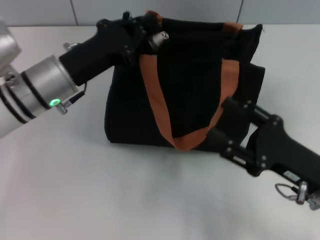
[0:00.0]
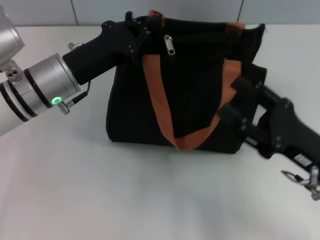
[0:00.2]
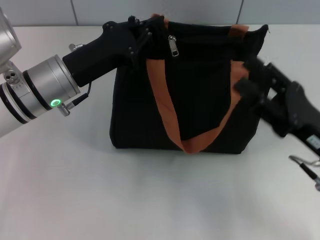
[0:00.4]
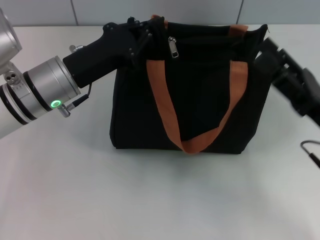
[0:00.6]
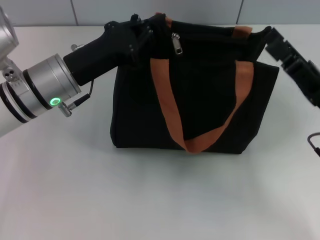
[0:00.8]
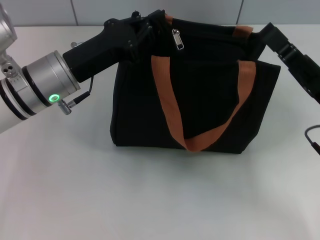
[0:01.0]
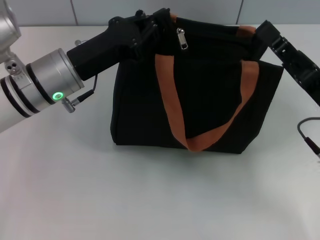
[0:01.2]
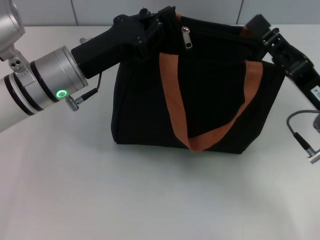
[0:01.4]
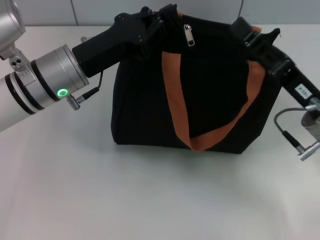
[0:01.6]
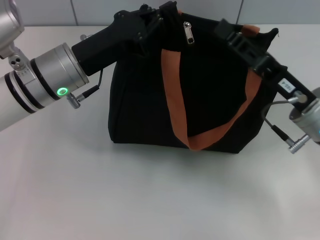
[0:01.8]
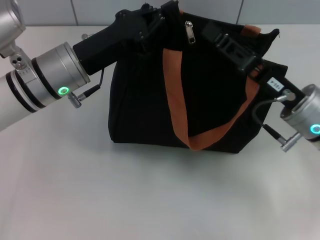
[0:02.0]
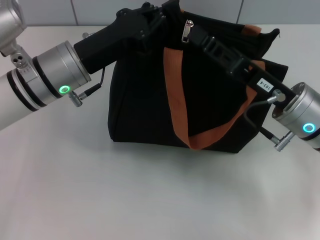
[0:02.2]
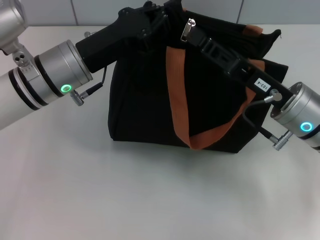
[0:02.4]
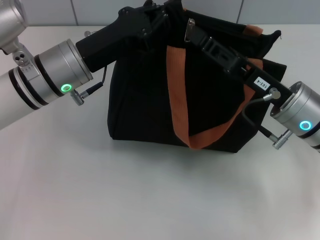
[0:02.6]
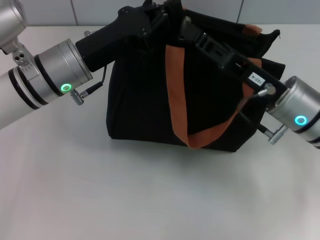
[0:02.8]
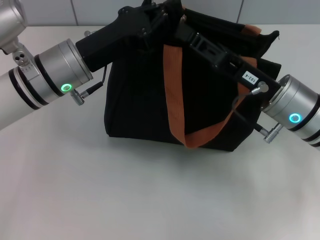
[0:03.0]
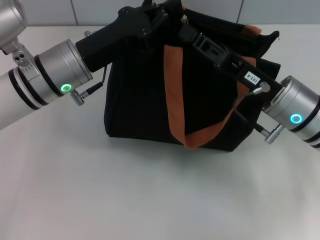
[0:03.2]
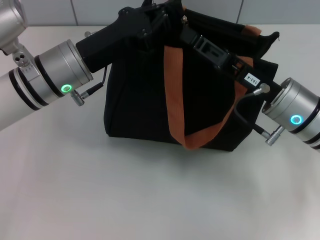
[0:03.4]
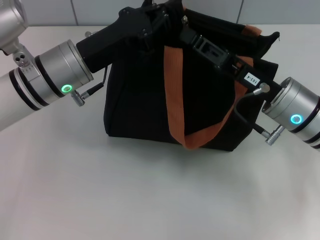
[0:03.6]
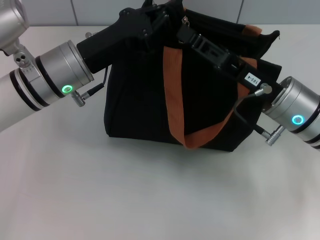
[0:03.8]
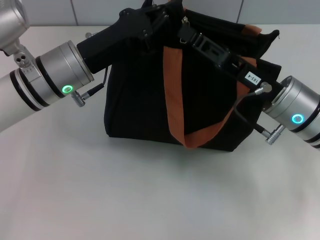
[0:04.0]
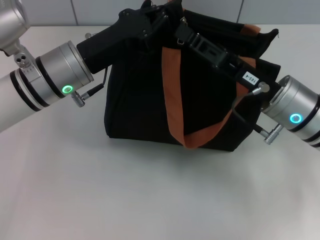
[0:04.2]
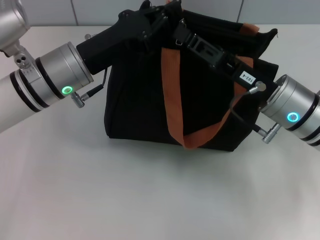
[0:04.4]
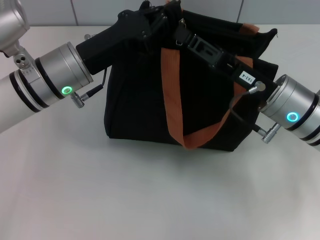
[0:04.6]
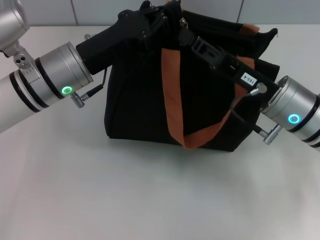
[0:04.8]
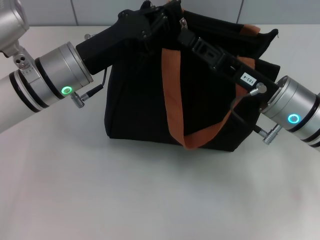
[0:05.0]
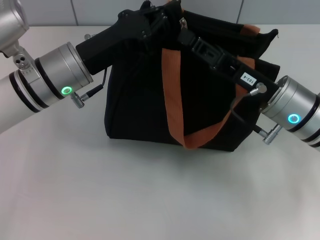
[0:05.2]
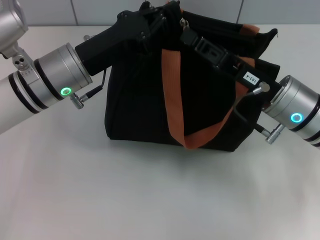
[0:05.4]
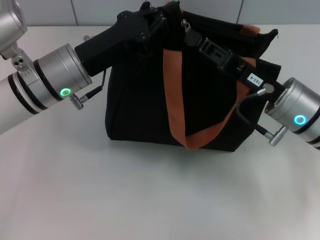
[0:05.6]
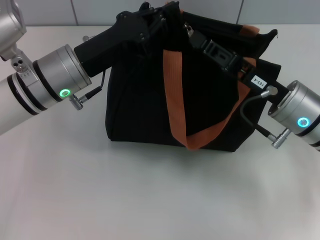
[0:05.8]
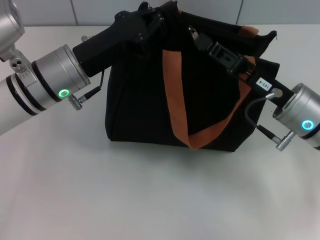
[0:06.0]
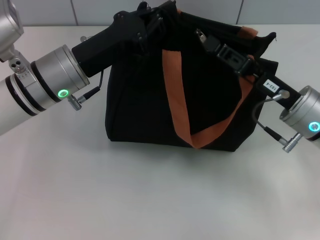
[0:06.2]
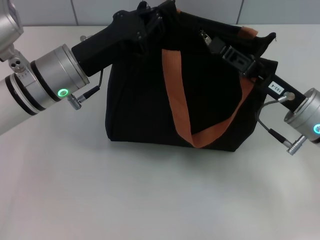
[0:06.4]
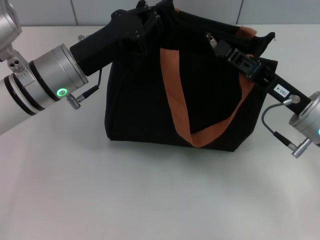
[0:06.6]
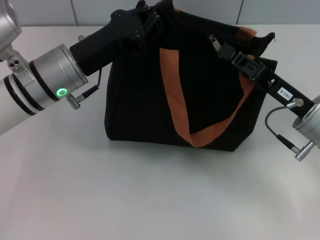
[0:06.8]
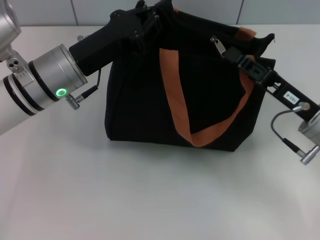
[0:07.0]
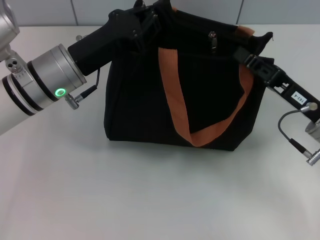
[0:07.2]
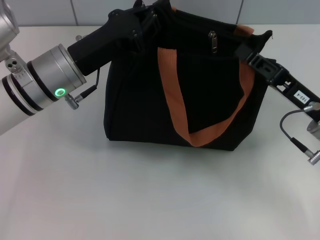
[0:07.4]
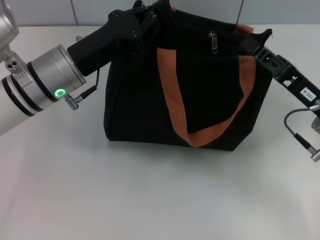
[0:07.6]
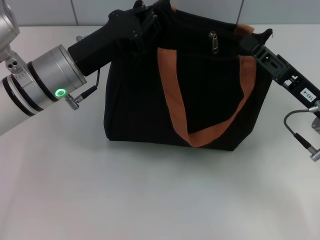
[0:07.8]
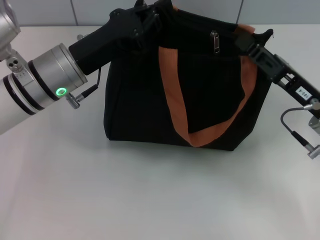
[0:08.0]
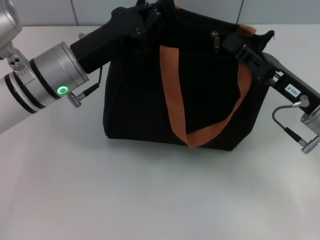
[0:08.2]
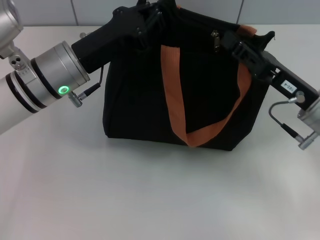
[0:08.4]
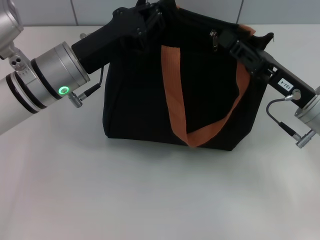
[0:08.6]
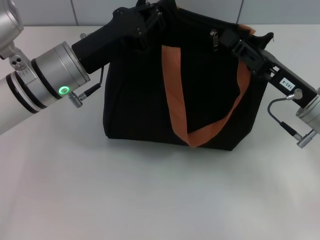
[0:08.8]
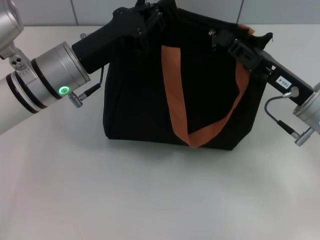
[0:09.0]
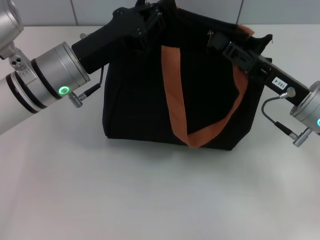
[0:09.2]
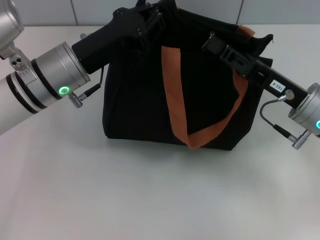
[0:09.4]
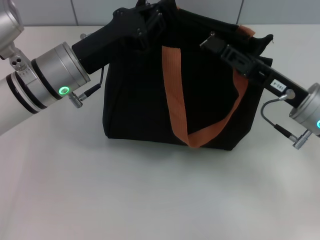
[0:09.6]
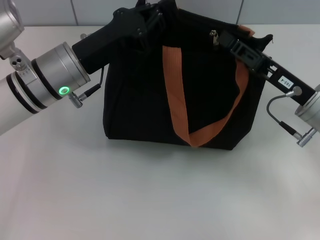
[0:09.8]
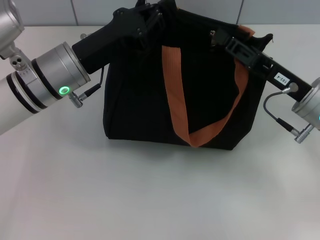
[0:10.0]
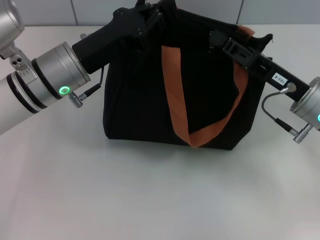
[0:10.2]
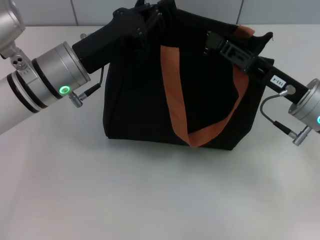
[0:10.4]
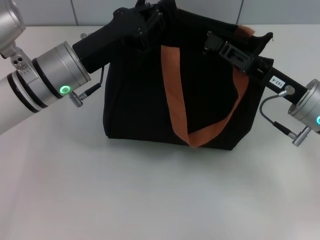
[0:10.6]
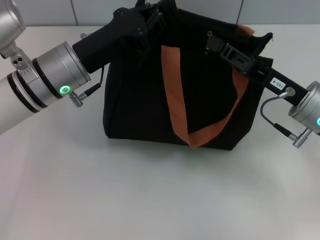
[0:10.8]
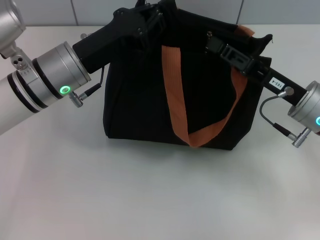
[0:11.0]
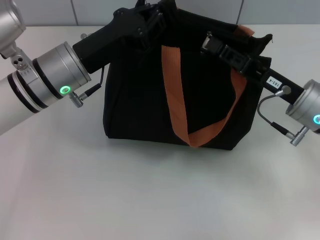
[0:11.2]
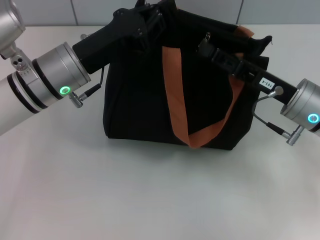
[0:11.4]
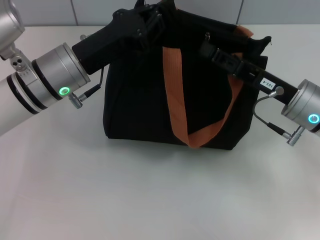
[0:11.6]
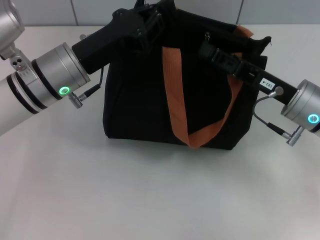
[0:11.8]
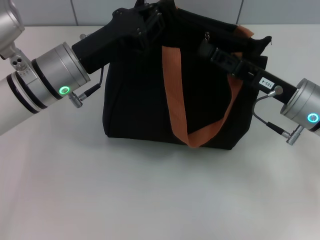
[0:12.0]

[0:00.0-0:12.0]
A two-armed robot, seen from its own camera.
0:00.0 to 0:01.6: The right gripper heads forward, covering roughly 5 cm, and closes its fingers.
0:01.6 to 0:03.0: The right gripper moves about 5 cm.
0:03.0 to 0:04.4: Both grippers stay about where they are.
0:04.4 to 0:06.0: The right gripper closes.
0:06.0 to 0:07.6: The right gripper ends up some 5 cm from where it was.
0:07.6 to 0:10.4: The grippers move only a little.
0:10.4 to 0:12.0: Neither gripper changes place.

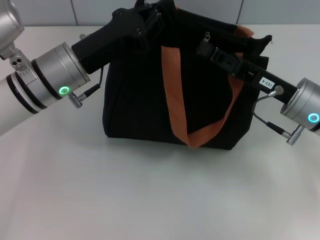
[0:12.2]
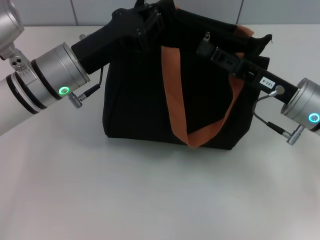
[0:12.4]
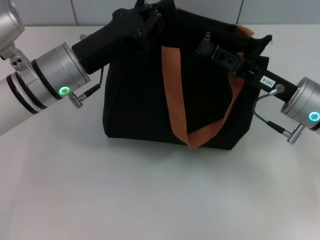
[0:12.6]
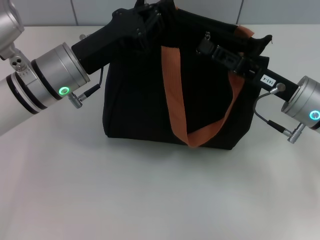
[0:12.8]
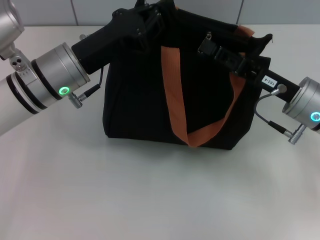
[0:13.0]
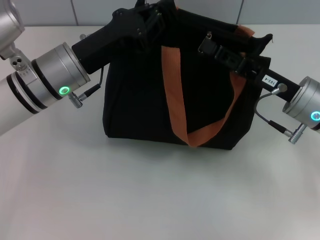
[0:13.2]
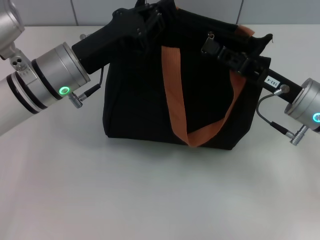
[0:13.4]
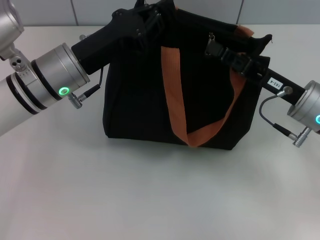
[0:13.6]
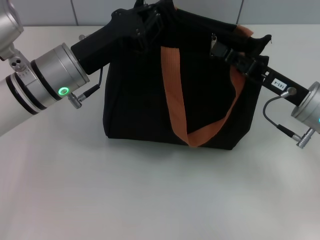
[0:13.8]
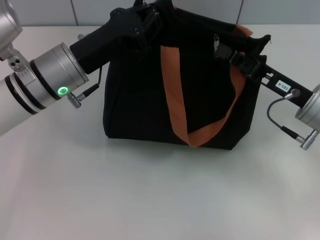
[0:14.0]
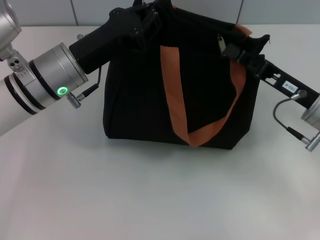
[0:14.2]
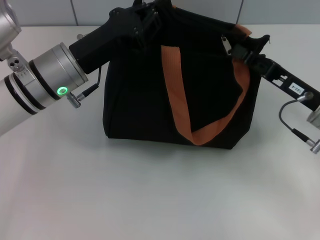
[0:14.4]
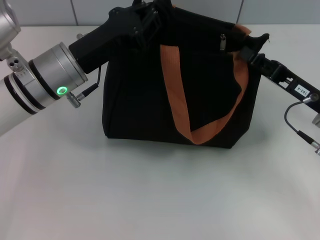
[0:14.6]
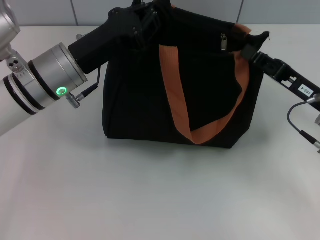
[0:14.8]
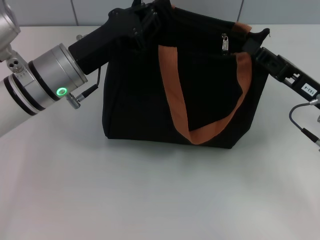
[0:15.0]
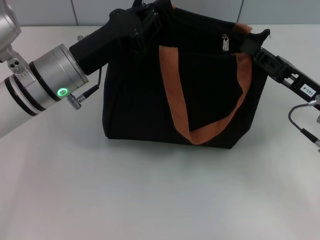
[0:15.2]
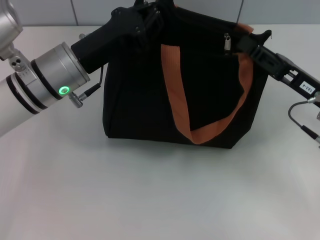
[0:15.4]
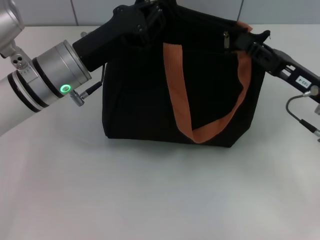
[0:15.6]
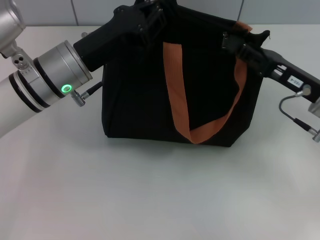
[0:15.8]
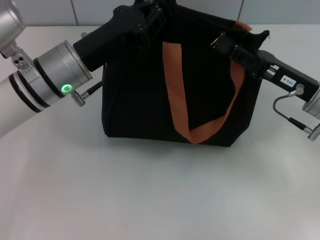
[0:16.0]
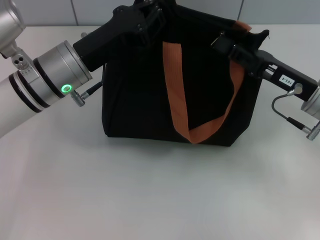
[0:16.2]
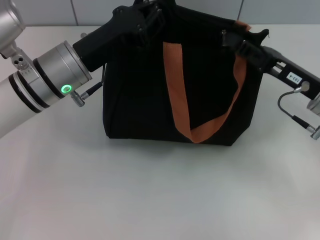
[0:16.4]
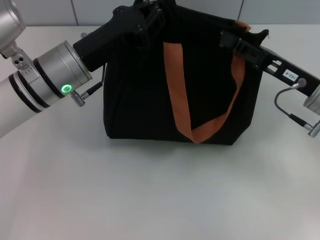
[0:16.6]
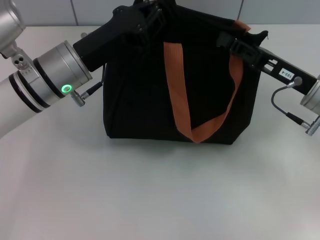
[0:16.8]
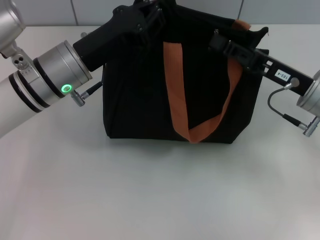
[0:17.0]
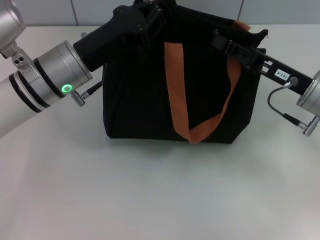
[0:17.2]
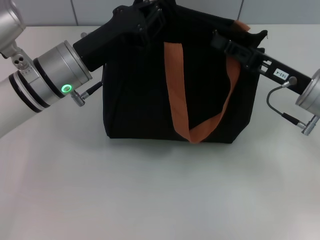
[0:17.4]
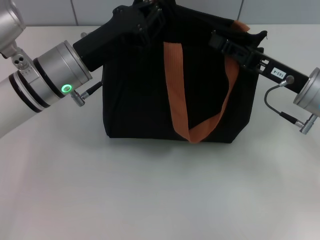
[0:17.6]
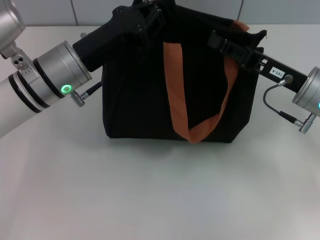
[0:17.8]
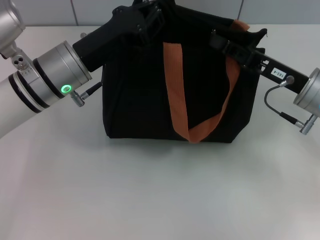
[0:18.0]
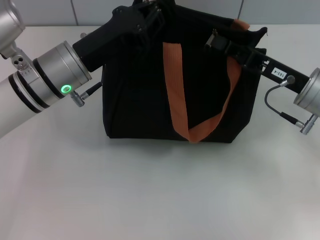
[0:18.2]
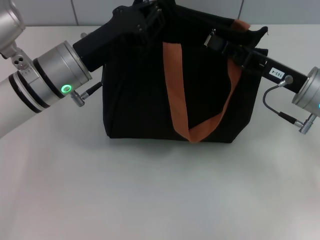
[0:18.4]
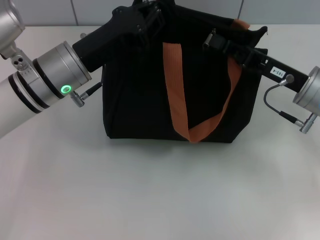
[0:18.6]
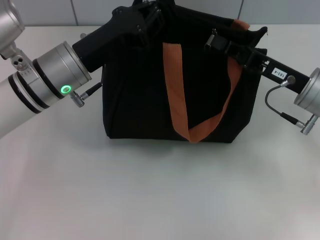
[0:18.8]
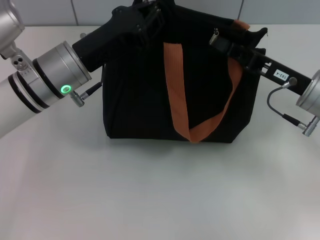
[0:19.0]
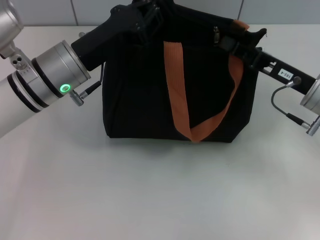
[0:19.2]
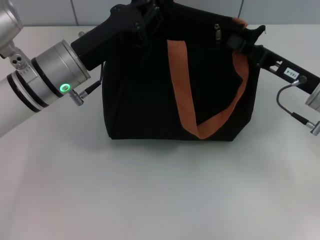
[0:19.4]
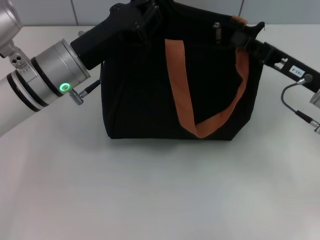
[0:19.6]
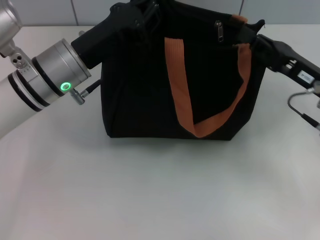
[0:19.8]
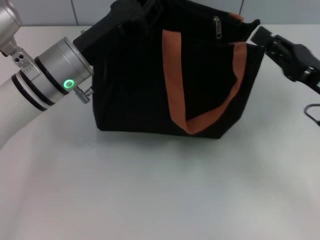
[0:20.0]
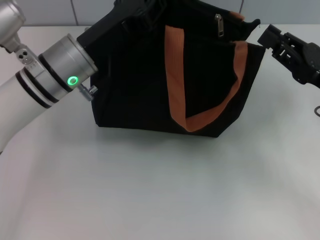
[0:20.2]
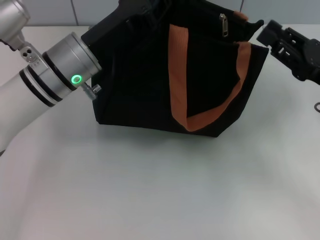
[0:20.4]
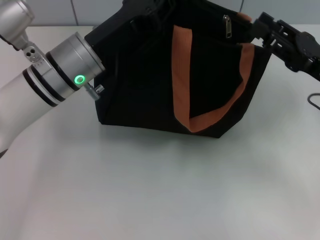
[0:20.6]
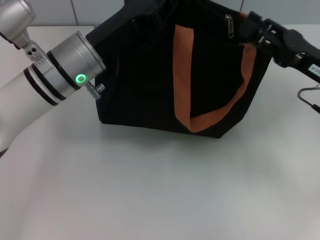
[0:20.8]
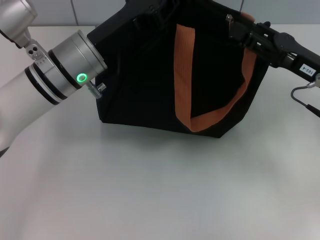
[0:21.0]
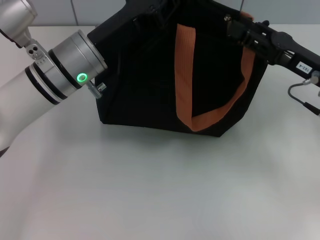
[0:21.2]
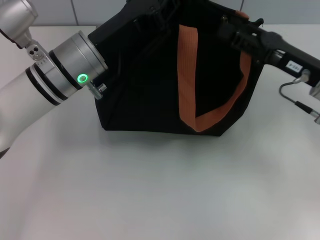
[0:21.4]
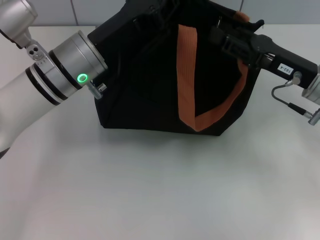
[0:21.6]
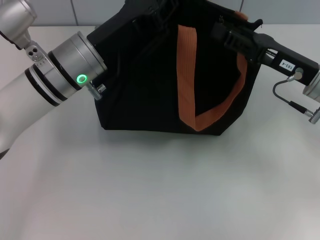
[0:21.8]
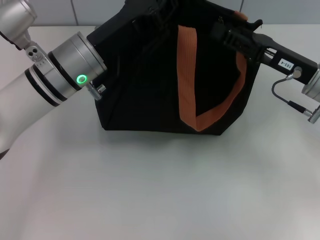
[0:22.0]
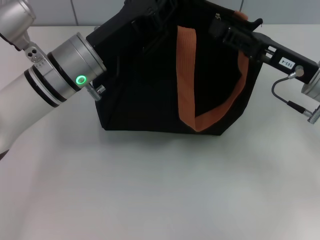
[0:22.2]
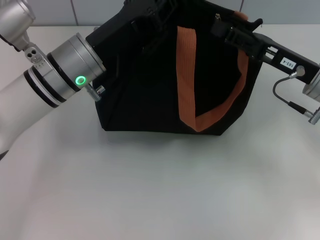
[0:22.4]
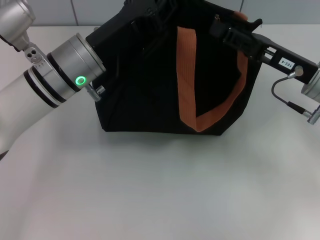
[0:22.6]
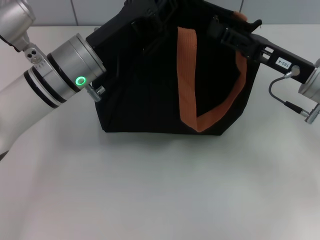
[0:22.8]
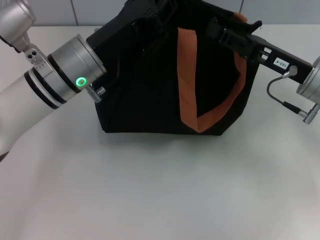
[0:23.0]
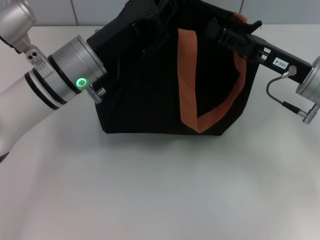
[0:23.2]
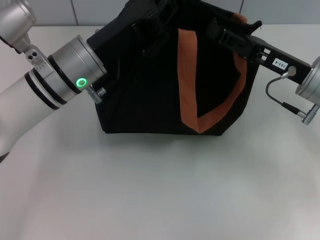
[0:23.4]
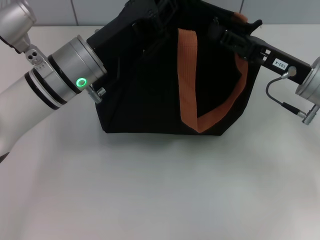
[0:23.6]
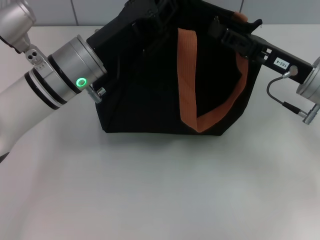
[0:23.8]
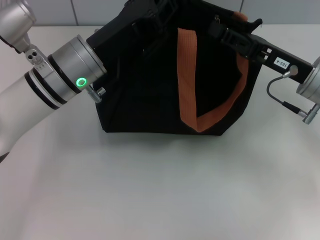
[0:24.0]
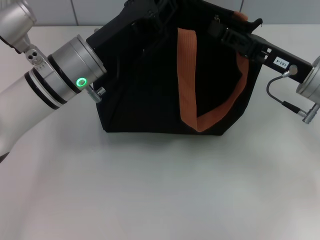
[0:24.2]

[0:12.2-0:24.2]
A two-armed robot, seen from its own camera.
0:12.2 to 0:19.8: The grippers move only a little.
0:19.8 to 0:21.2: The right gripper opens.
0:21.2 to 0:22.6: The grippers make only small movements.
0:22.6 to 0:24.2: The right gripper closes up.
